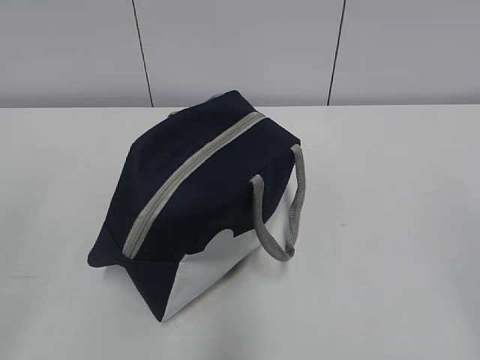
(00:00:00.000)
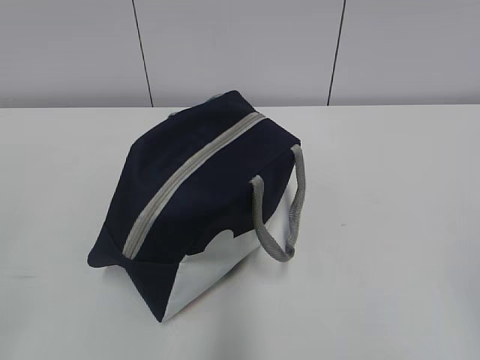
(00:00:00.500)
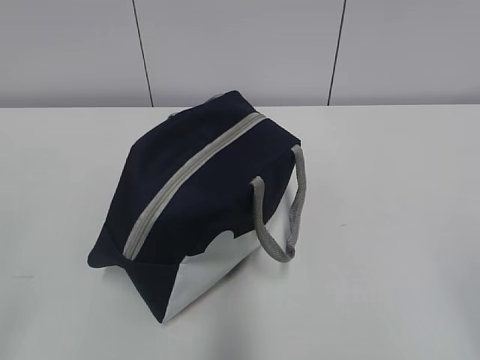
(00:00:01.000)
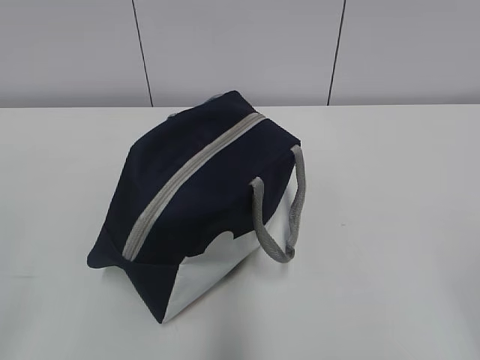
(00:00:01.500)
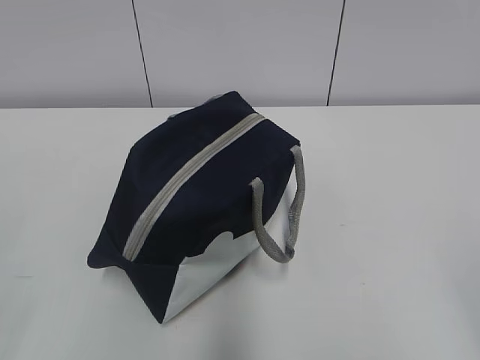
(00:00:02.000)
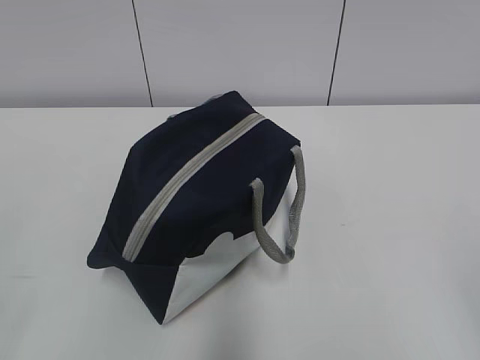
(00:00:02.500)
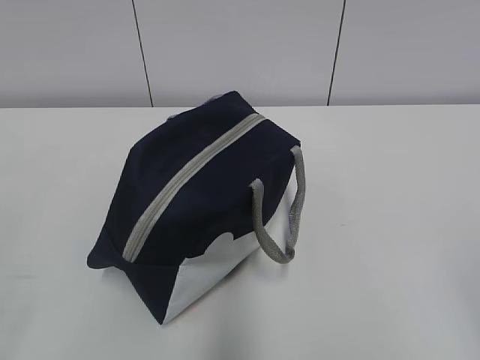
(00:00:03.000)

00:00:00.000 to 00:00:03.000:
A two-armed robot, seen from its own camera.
00:00:00.000 to 00:00:01.500: Both grippers travel together downward, roughly 5 cm.

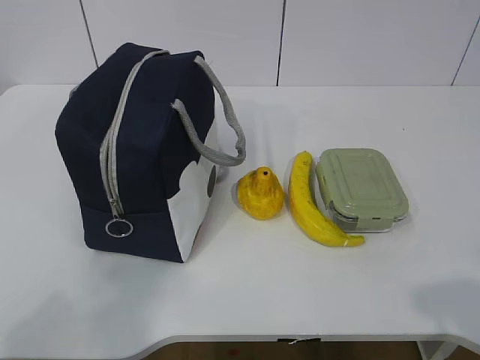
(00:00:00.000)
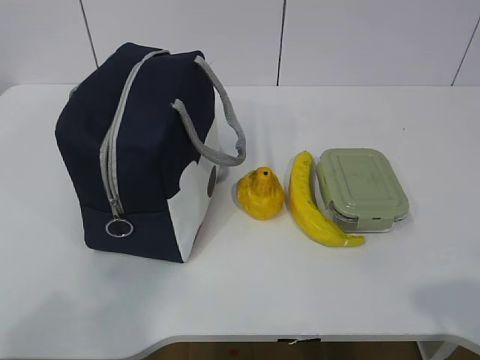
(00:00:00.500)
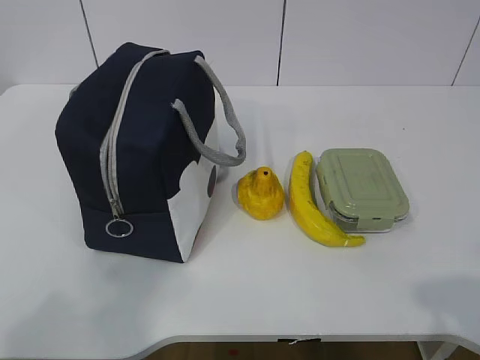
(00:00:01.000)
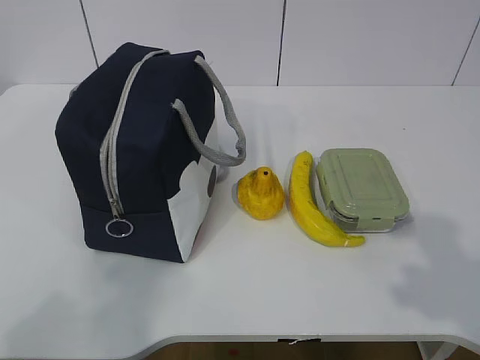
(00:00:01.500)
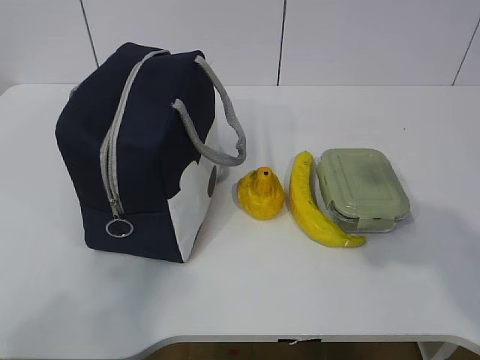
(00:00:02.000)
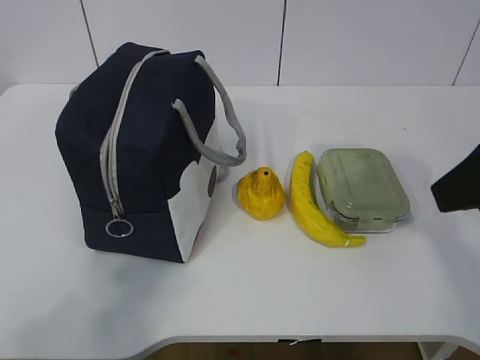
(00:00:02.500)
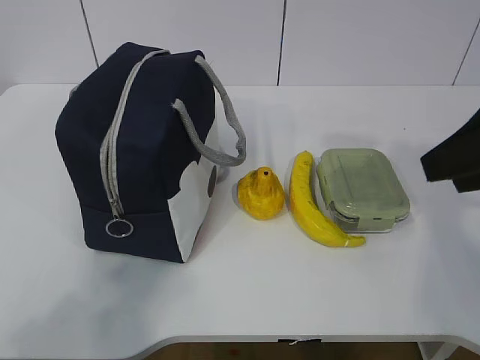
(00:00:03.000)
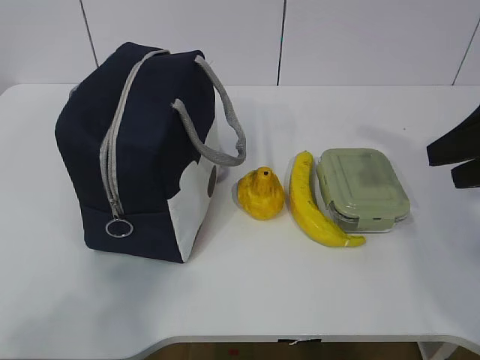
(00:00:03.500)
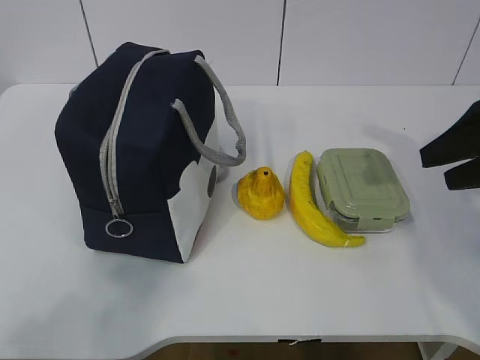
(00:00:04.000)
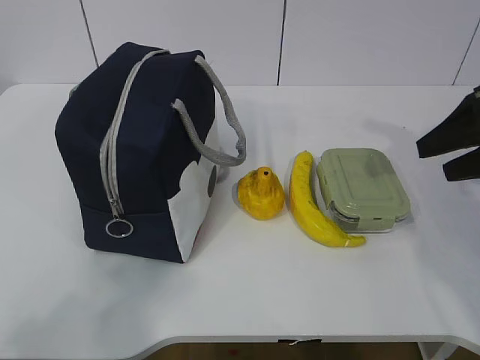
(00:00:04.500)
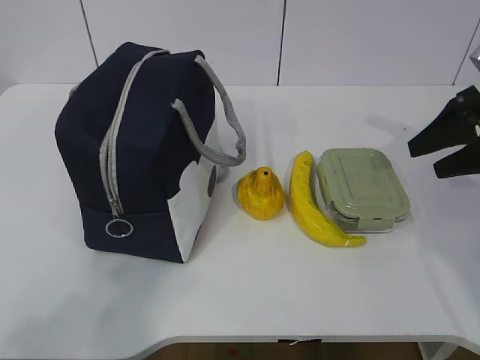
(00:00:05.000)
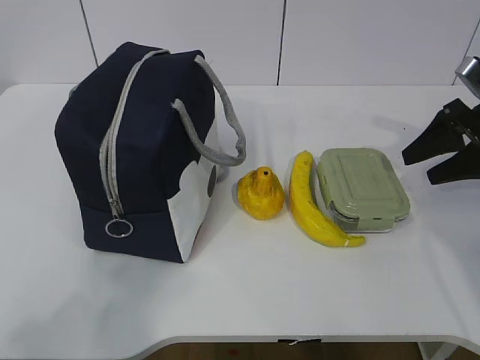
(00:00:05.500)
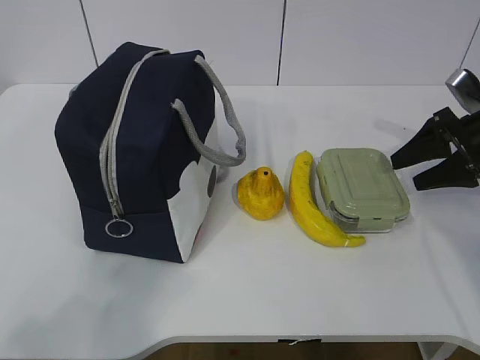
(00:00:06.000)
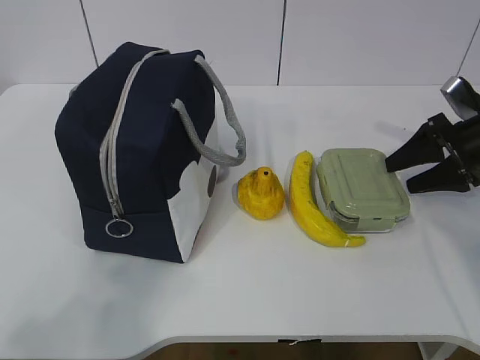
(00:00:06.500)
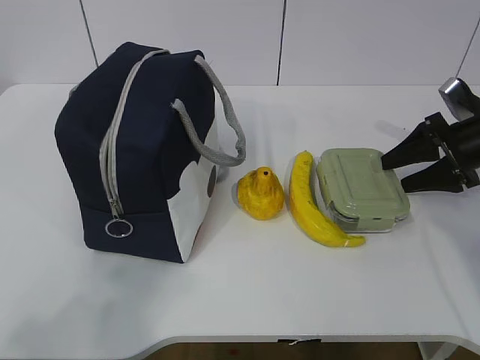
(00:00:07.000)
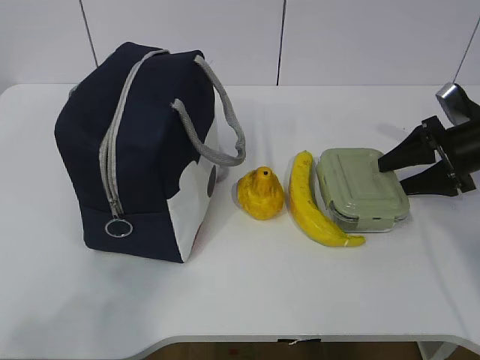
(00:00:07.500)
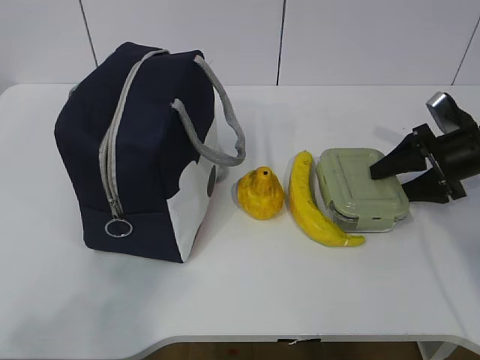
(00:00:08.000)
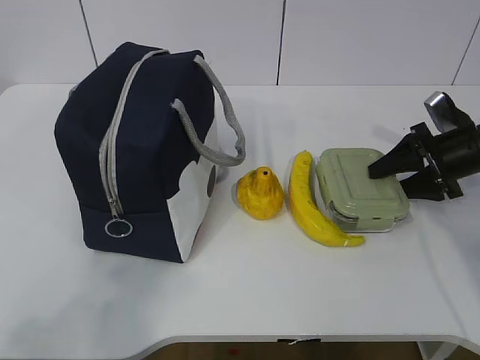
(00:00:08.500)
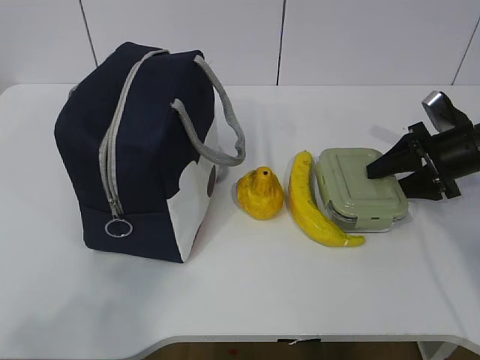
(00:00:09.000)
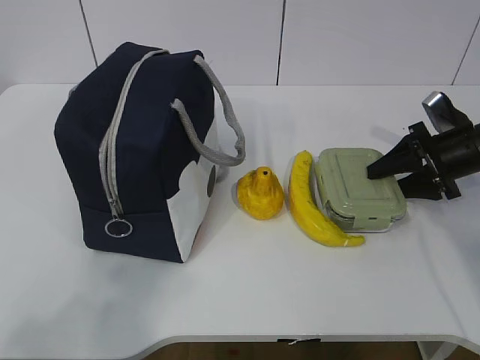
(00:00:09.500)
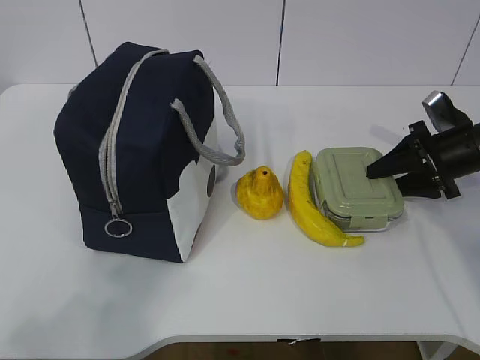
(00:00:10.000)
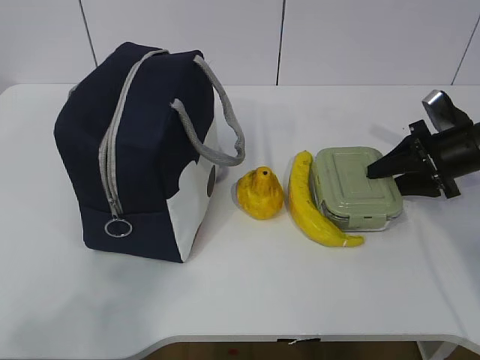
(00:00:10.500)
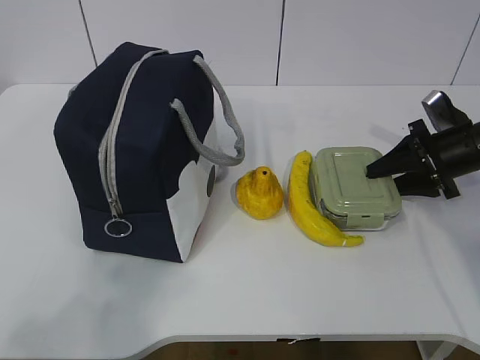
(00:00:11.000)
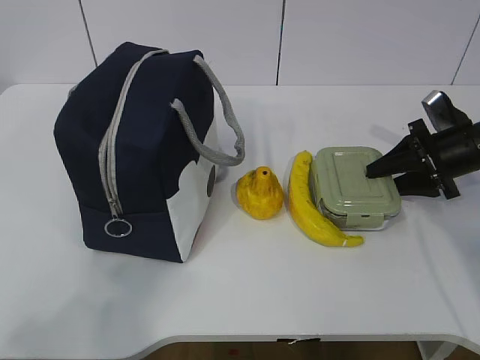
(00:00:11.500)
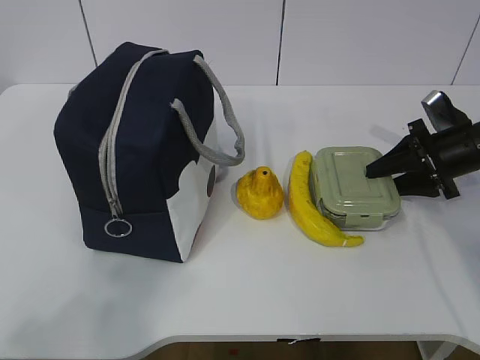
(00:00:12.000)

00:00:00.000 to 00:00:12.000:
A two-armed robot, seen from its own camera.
Step, 00:00:00.000 to 00:00:11.000: Grab the lunch box with your right hand.
00:00:02.000 to 00:00:04.000: The right gripper travels forward by roughly 15 cm.
00:00:04.000 to 00:00:06.000: The right gripper heads forward and downward, covering some 10 cm.
00:00:06.000 to 00:00:08.000: There are only small adjustments of the grippers.
00:00:08.000 to 00:00:12.000: Neither gripper changes place.

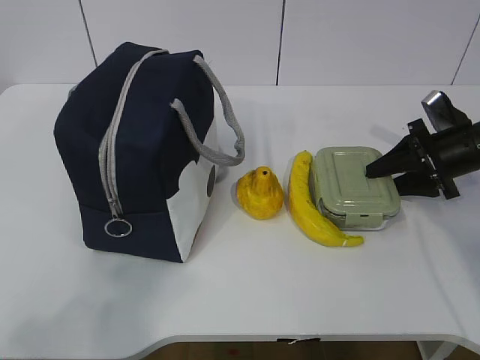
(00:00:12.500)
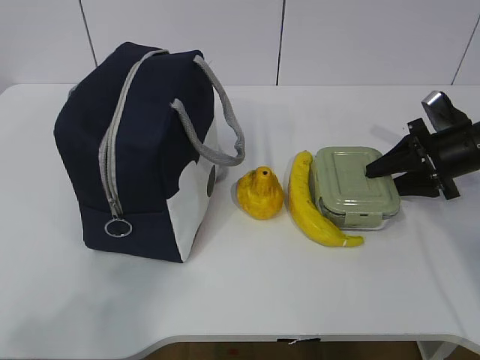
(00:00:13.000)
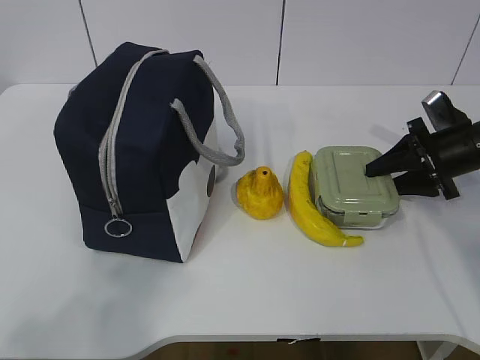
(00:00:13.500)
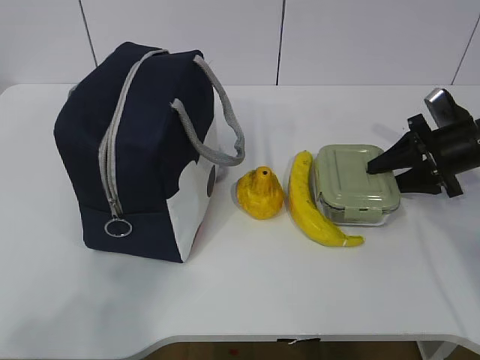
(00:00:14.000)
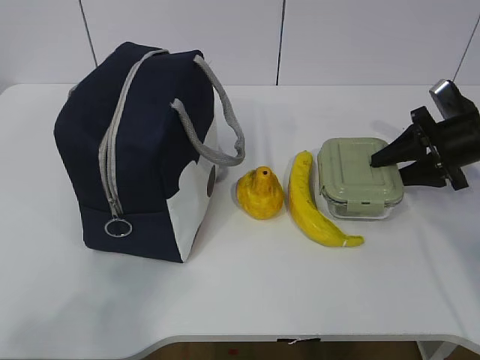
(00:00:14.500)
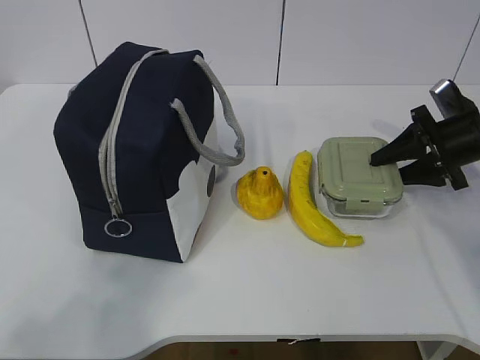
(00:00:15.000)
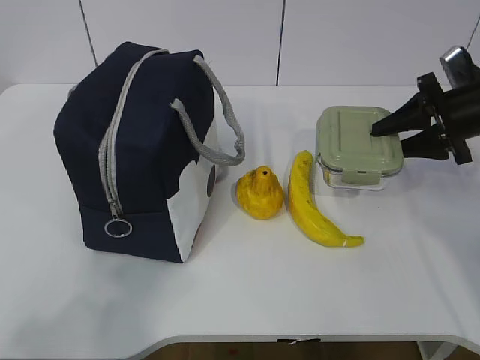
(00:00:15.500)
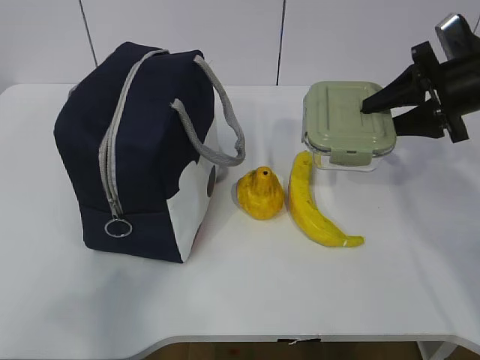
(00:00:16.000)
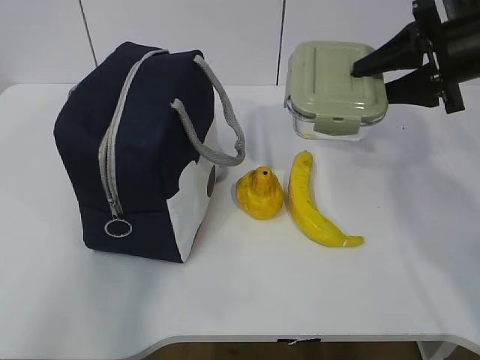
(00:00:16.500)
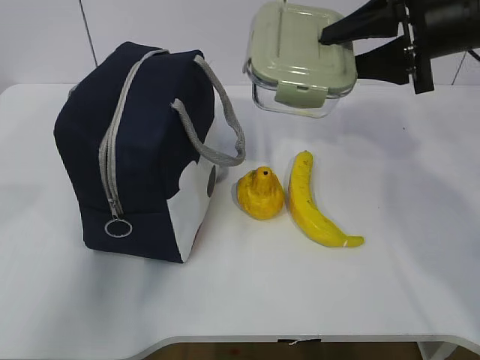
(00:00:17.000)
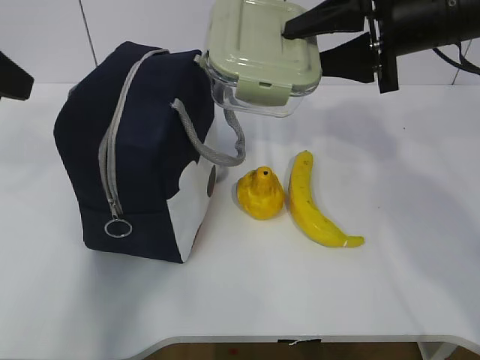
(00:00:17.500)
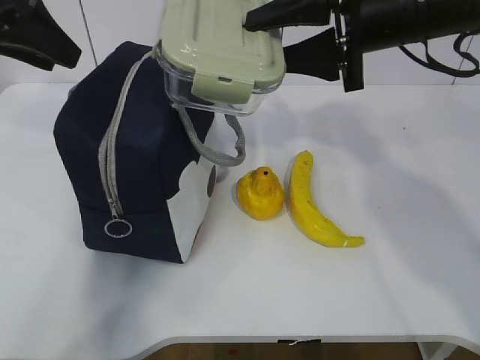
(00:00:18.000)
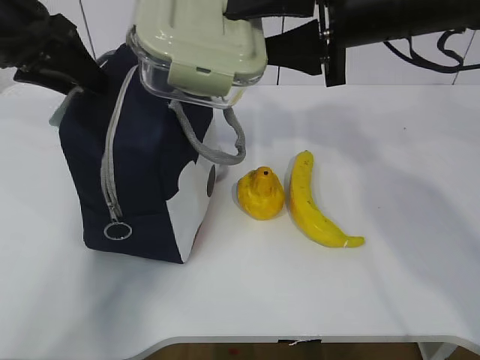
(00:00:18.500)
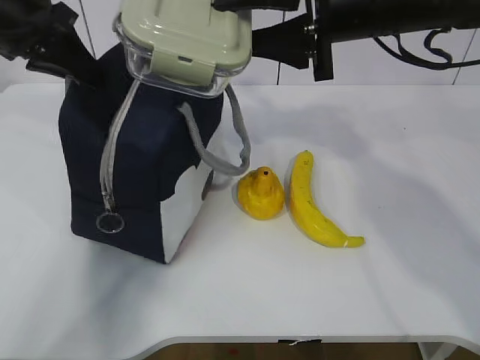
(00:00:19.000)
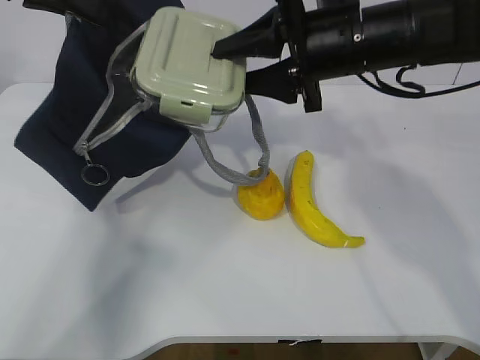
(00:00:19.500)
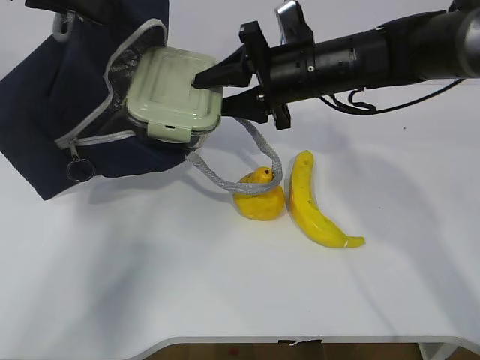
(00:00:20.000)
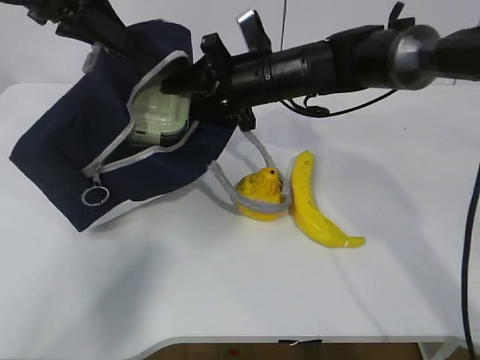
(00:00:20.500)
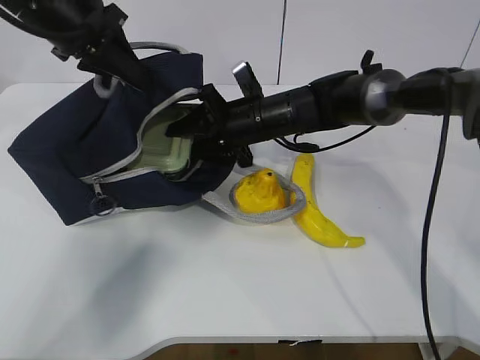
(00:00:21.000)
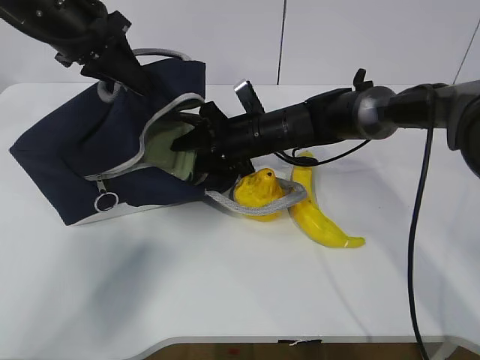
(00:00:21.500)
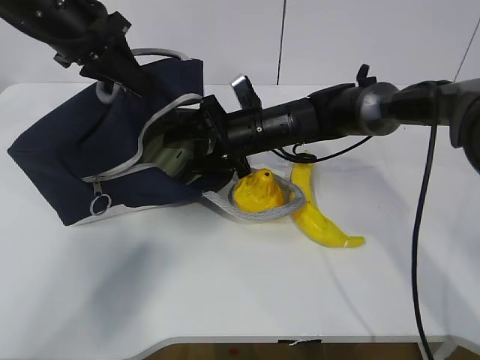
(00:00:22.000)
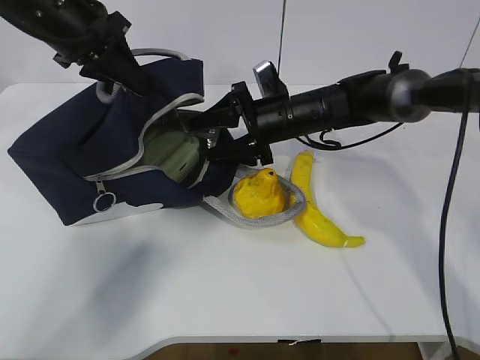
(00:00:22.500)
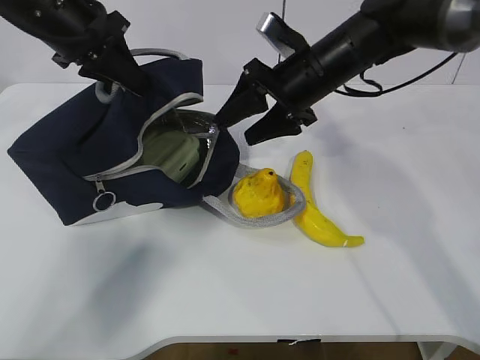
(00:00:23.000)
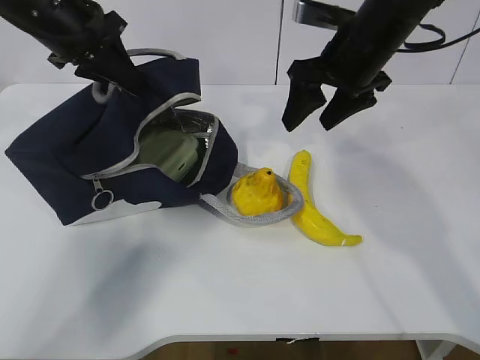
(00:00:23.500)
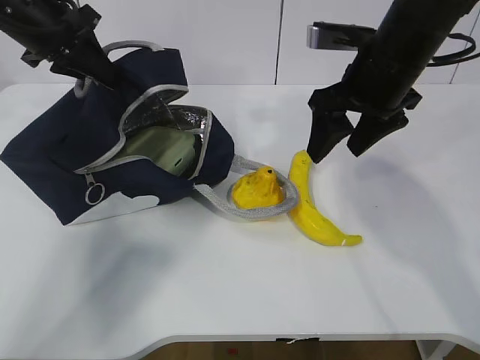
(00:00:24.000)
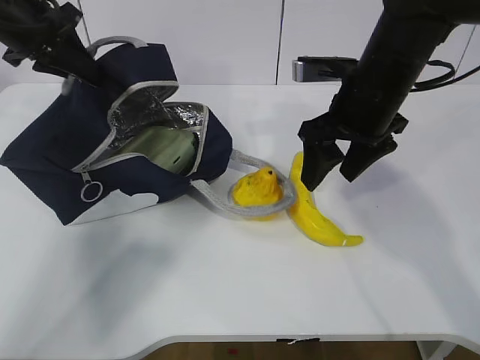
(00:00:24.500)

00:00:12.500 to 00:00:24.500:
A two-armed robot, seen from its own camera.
Step, 00:00:12.500 to 00:00:16.000: Grab the lunch bag with your left hand.
Step, 00:00:16.500 to 00:00:18.500: Place it into the bag with your right hand.
Step, 00:00:19.000 to 00:00:22.500: Grab the banana with your right hand.
00:00:12.500 to 00:00:14.500: The grippers move only a little.
00:00:14.500 to 00:00:16.500: The right gripper travels upward and to the left by roughly 15 cm, while the left gripper goes approximately 10 cm forward and upward.
00:00:16.500 to 00:00:18.500: The right gripper heads to the left, covering approximately 15 cm. The left gripper travels forward by roughly 30 cm.
00:00:18.500 to 00:00:20.500: The left gripper shifts by roughly 5 cm, and closes. Meanwhile the right gripper shifts approximately 15 cm downward, forward and to the left.
00:00:20.500 to 00:00:22.500: The two grippers go approximately 5 cm downward. The right gripper opens up.
00:00:22.500 to 00:00:24.500: The right gripper heads upward, backward and to the right, covering roughly 15 cm. Meanwhile the left gripper moves to the left, roughly 5 cm.
